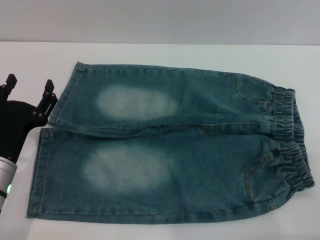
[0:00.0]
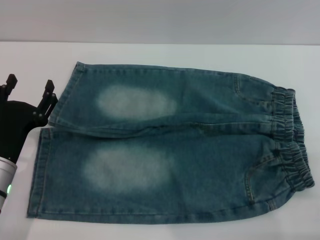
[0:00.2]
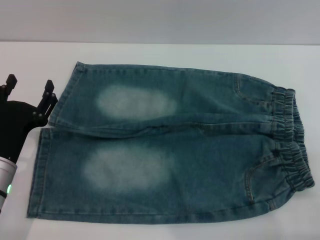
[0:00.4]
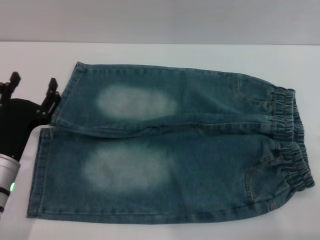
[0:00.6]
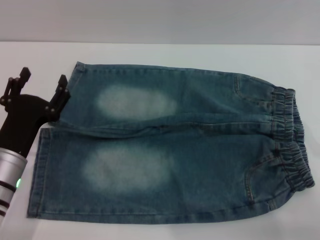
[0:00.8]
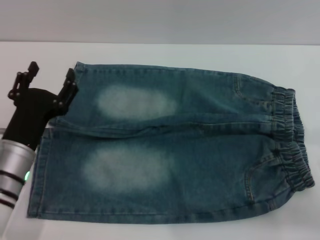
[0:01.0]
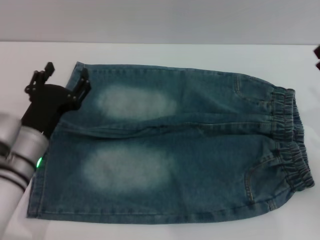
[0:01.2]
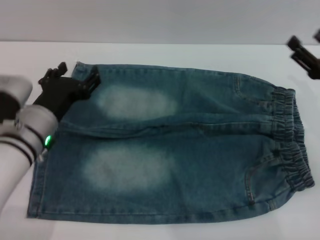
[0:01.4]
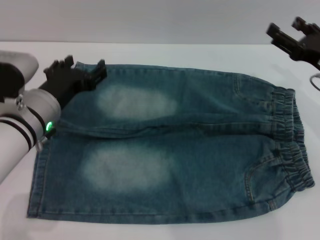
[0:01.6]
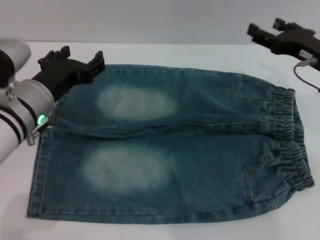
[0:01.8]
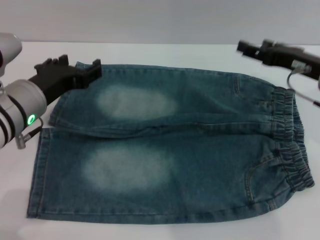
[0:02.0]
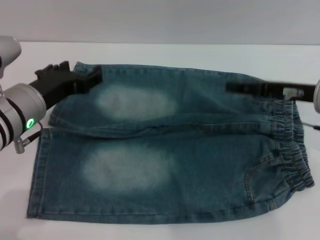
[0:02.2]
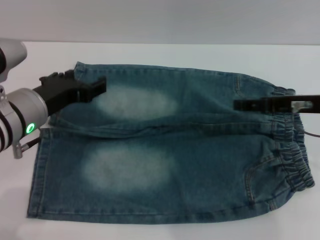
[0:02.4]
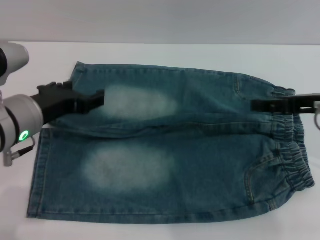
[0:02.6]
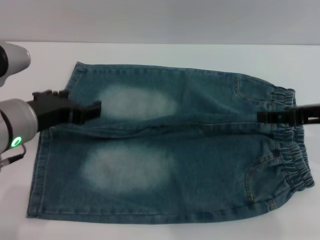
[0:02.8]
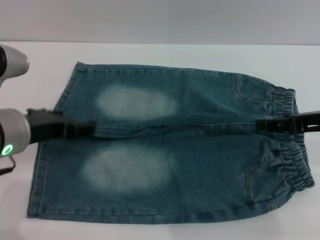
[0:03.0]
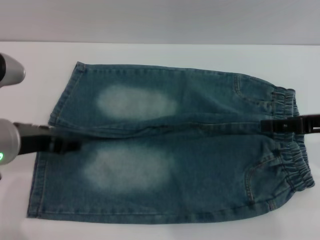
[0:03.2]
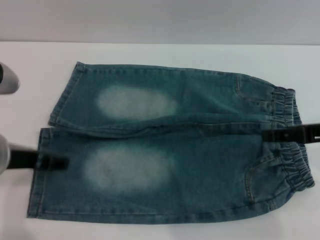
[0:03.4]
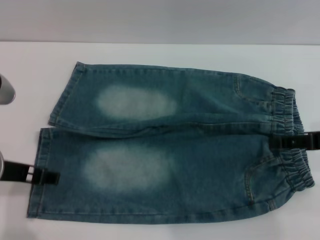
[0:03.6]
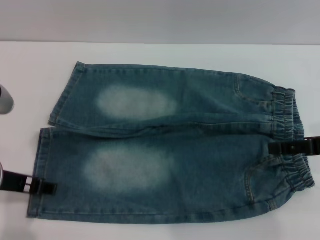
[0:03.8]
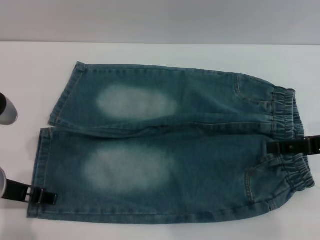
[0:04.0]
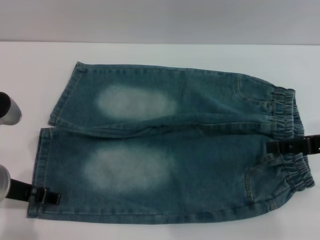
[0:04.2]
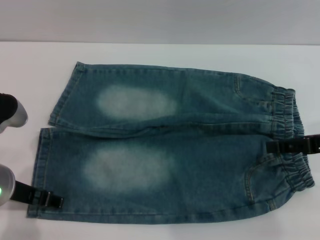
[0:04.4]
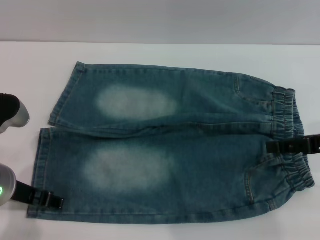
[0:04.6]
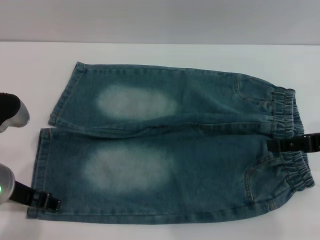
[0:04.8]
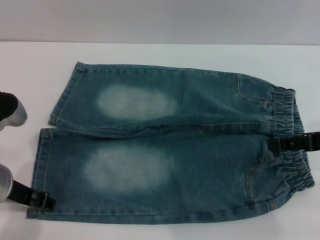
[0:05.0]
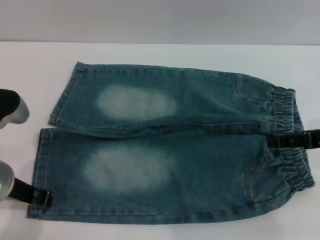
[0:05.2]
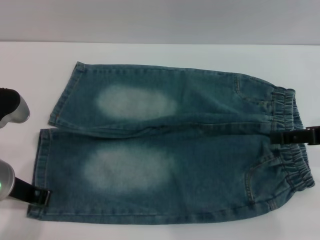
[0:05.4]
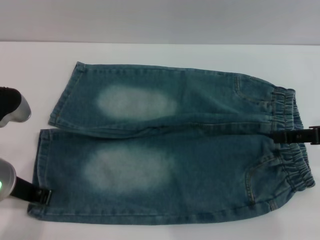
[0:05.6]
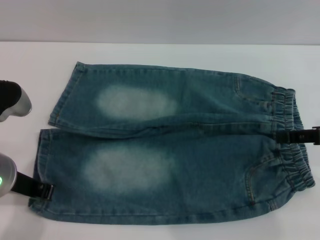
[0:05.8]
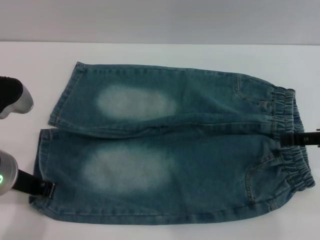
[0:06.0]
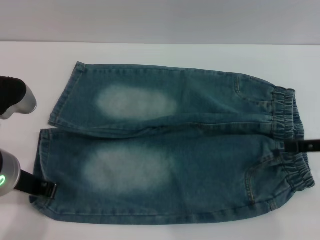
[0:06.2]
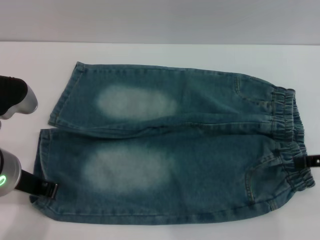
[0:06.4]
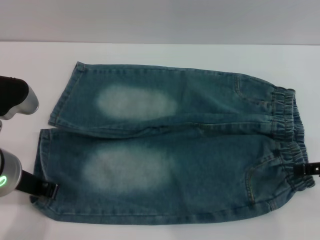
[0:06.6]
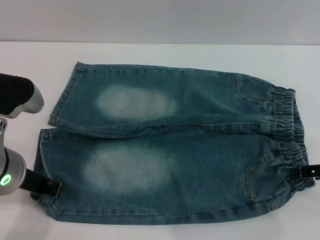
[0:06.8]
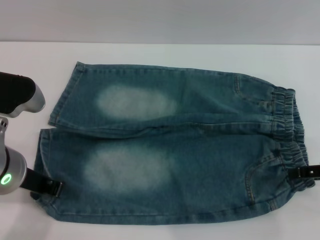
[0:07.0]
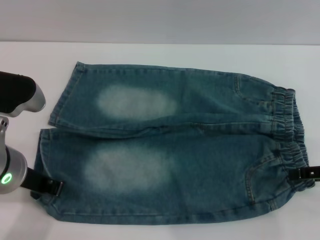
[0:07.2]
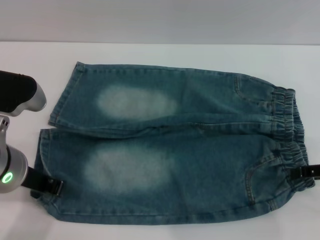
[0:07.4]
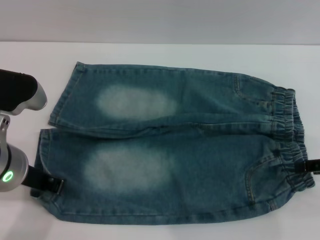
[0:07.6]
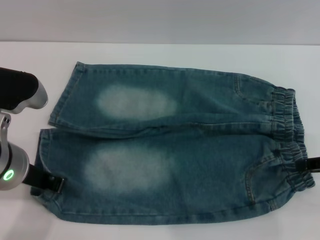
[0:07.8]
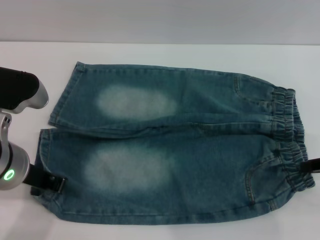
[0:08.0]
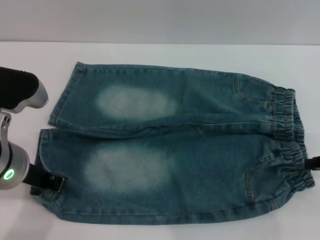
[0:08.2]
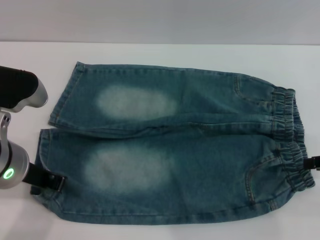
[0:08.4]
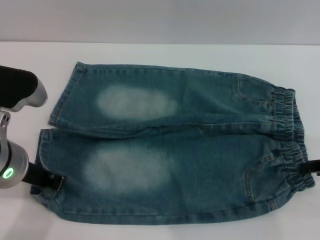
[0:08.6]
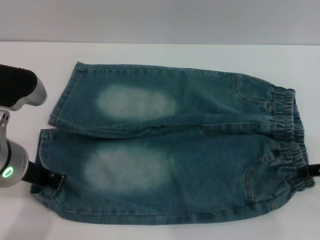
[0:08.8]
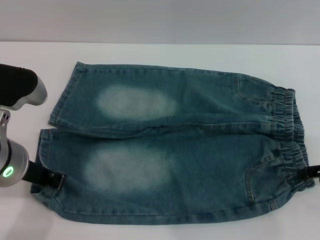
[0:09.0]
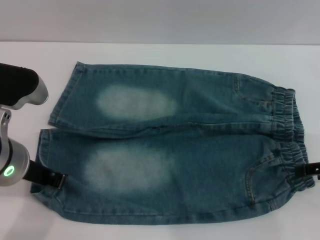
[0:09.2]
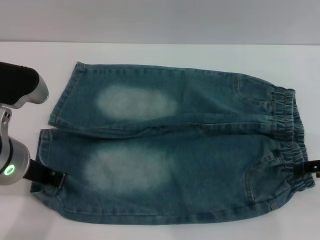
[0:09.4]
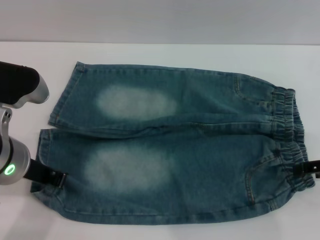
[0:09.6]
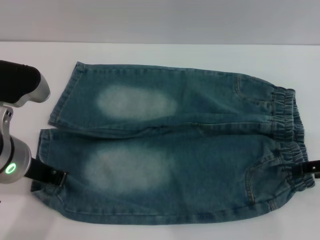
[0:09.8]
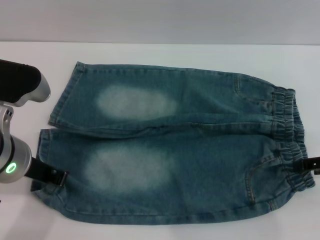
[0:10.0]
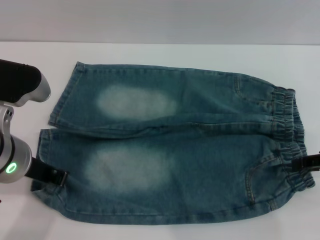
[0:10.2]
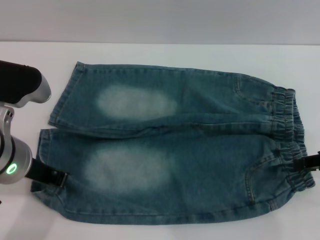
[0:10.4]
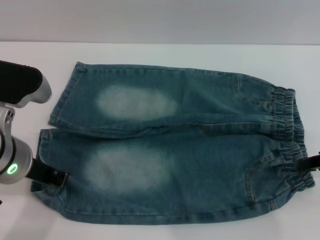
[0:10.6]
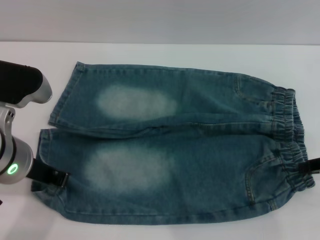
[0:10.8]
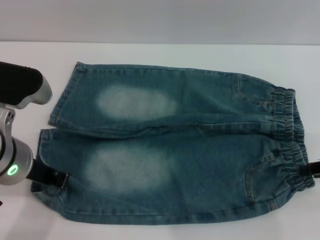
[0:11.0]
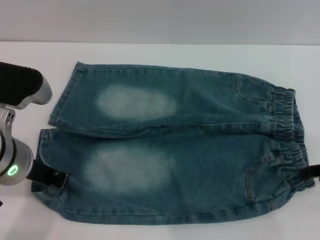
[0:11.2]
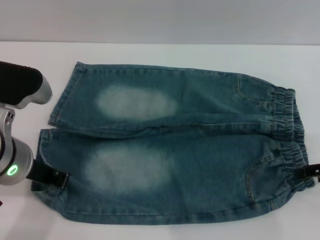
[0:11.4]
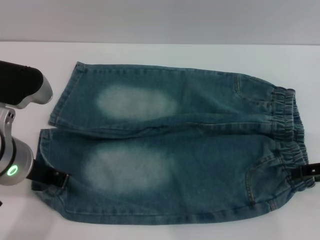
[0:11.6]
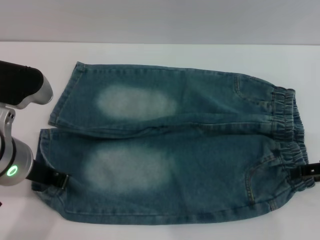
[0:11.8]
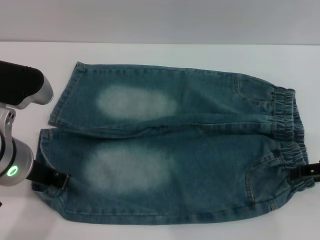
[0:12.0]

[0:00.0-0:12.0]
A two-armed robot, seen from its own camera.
0:00.0 to 0:01.6: The left gripper shifts about 10 cm forward, upward and to the right, while the right gripper heads forward, covering approximately 20 cm.
0:01.6 to 0:03.0: The two grippers go approximately 10 cm upward and backward.
0:04.4 to 0:06.0: The left gripper closes up.
0:06.0 to 0:07.6: The right gripper moves about 5 cm.
0:09.0 to 0:10.4: The two grippers keep their place.

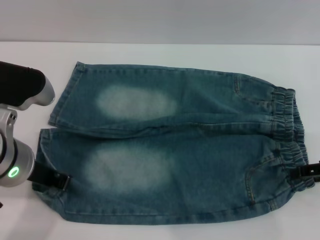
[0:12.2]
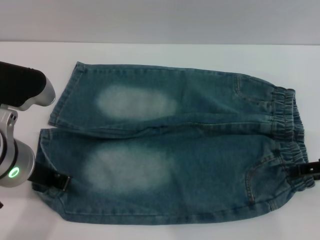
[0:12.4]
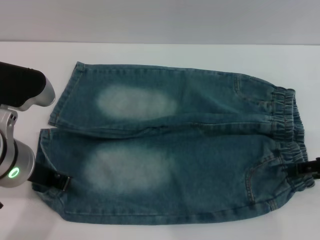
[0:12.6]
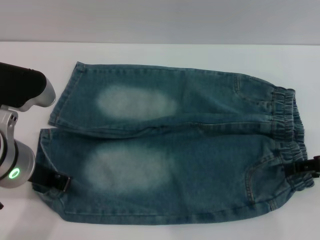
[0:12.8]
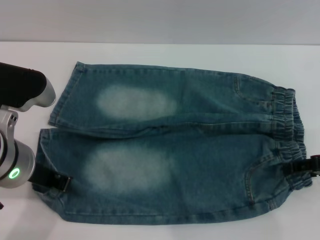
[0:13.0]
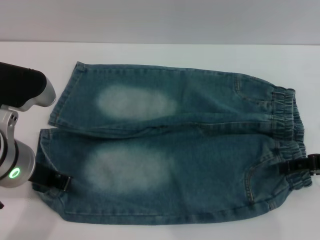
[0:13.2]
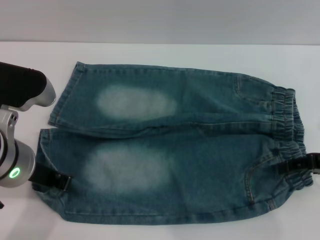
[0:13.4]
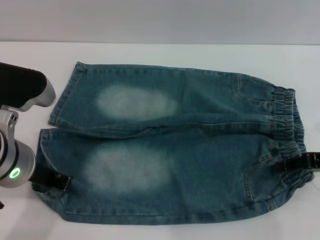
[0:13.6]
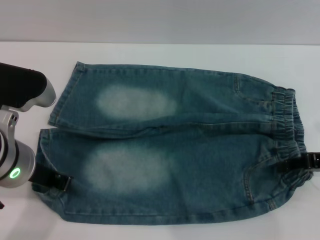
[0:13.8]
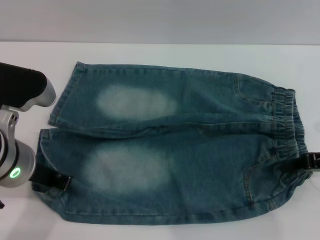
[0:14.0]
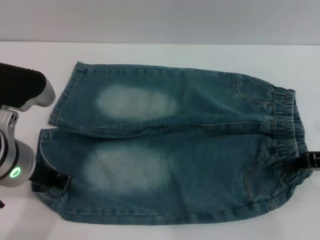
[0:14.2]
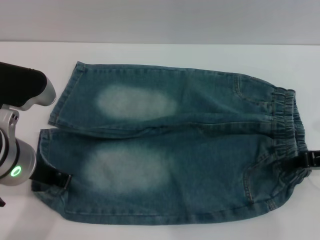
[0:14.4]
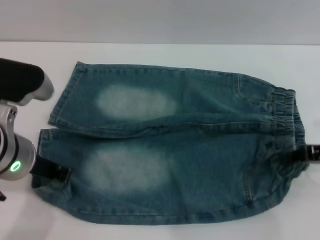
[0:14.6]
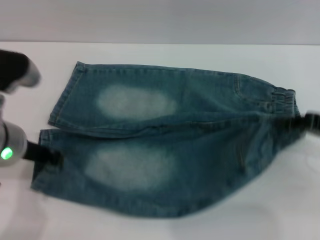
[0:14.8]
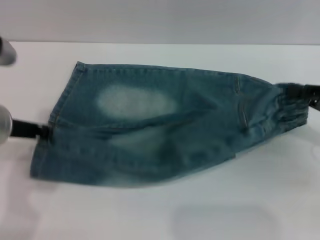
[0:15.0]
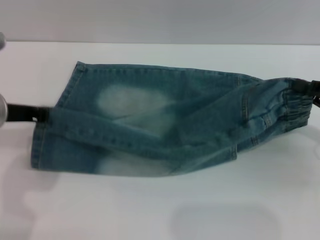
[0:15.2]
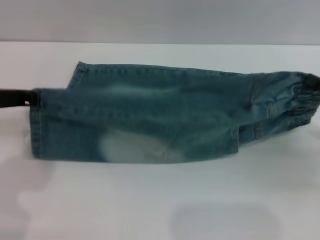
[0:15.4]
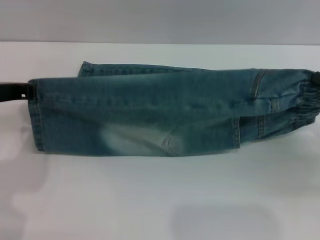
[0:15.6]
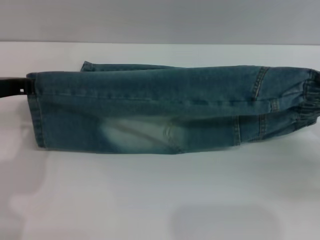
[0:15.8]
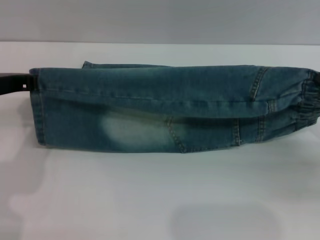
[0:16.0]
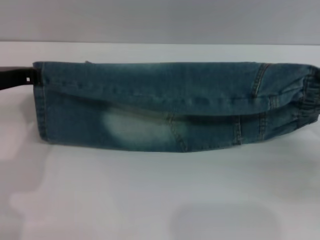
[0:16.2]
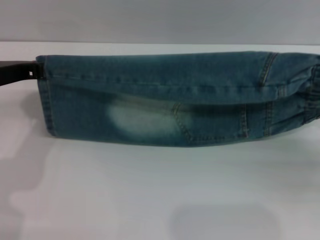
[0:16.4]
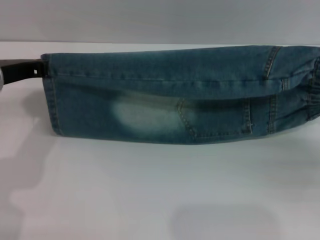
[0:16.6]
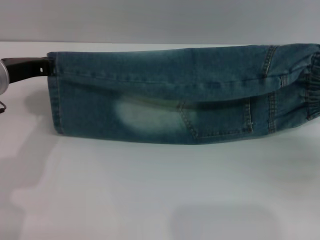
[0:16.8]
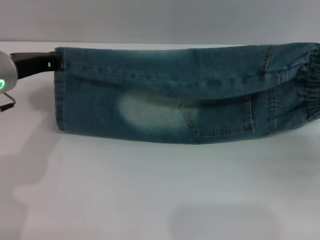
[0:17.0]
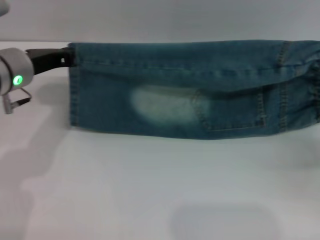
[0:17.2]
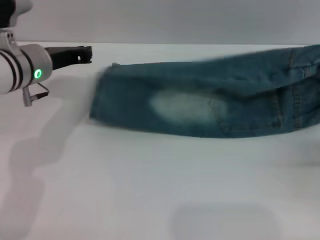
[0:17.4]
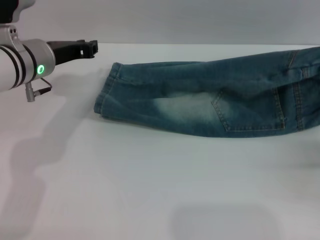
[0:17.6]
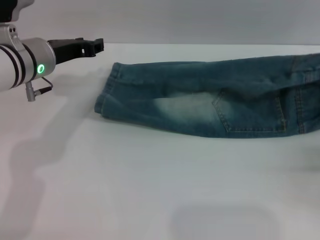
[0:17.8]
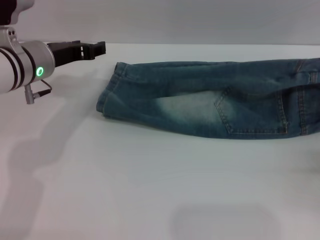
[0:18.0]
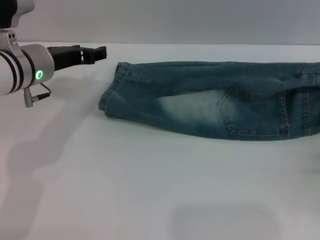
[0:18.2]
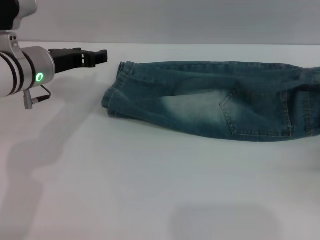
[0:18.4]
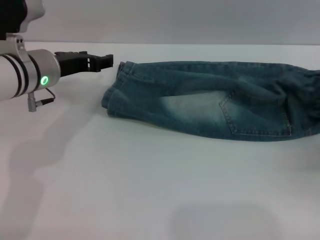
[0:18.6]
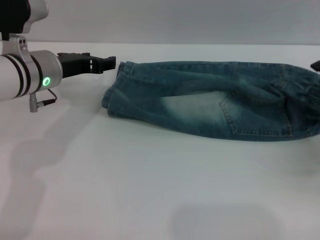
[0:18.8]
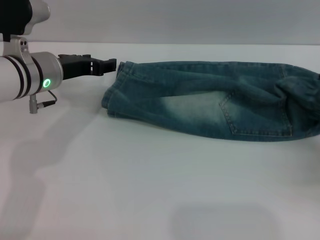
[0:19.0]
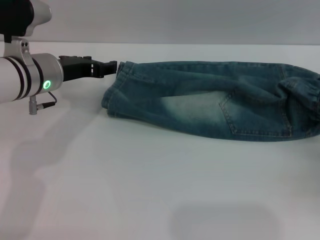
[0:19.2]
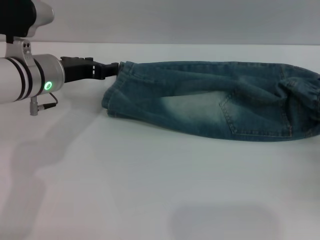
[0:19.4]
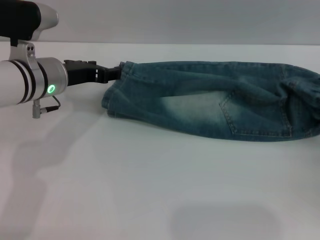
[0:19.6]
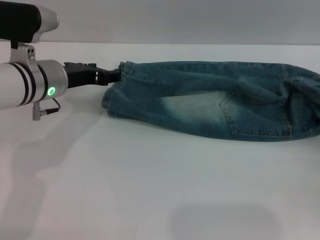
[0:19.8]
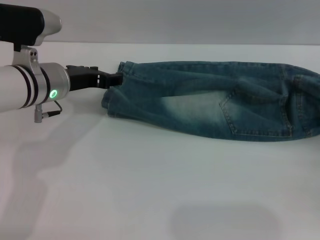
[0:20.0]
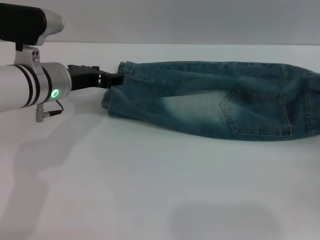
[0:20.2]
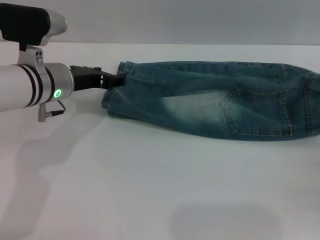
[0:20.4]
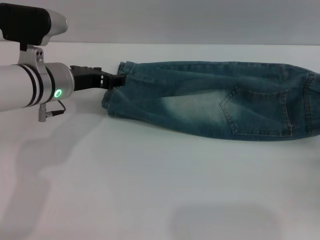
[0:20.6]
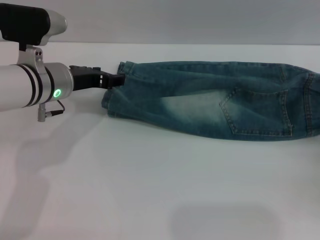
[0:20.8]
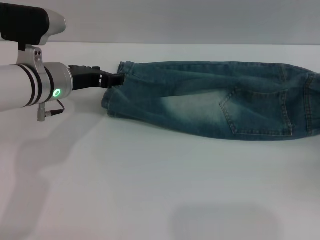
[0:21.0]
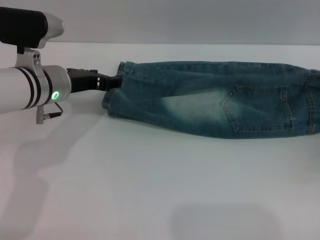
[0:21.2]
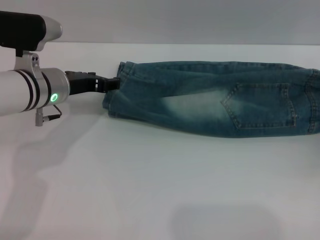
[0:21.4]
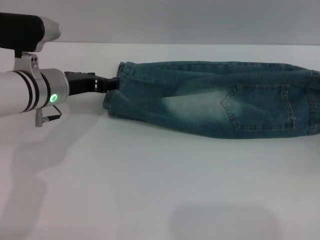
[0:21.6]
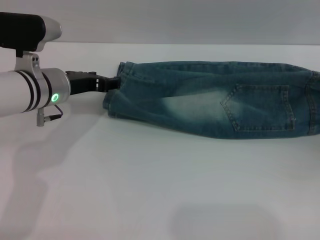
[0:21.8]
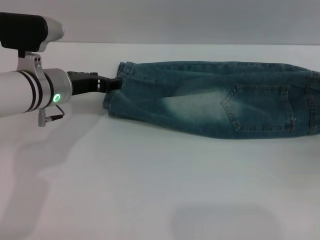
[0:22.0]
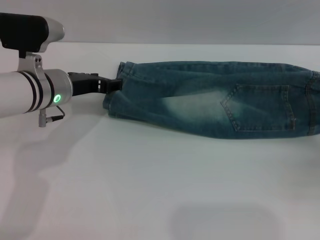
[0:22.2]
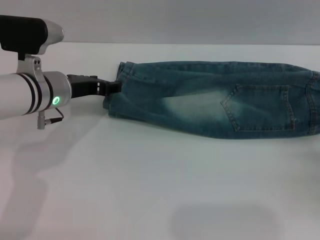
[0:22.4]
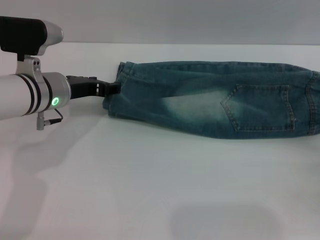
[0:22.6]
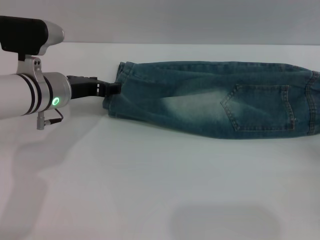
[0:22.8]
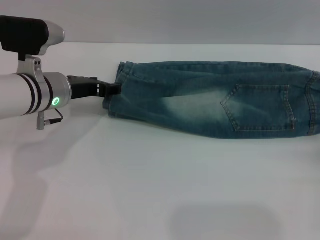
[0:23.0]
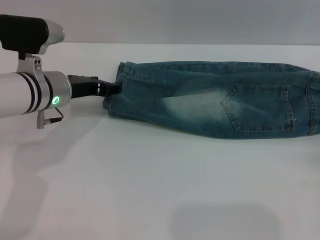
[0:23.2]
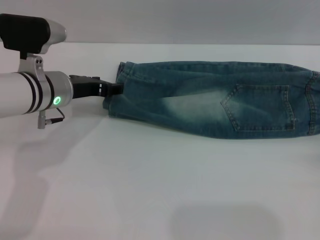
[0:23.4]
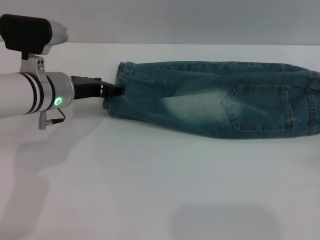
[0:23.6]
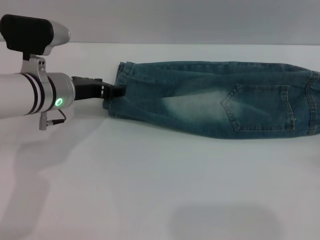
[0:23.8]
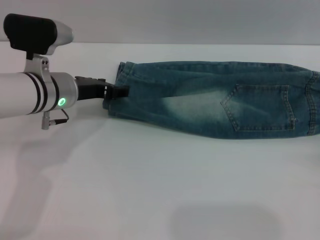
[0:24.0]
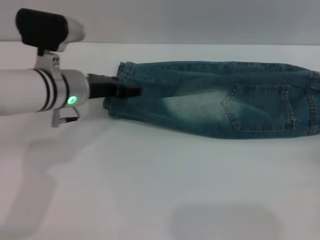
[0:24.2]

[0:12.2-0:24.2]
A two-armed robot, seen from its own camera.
Step, 0:12.2 to 0:22.6: Fold the bottom of the pants upward with both grippers.
0:12.2 to 0:13.8: The right gripper closes its fingers.
0:13.8 to 0:15.2: The left gripper ends up approximately 5 cm from where it was. Meanwhile the right gripper closes.
0:16.6 to 0:18.2: The right gripper opens. The left gripper heads forward, covering approximately 5 cm, and opens.
0:18.2 to 0:19.8: The right gripper shifts by some 5 cm.
0:19.8 to 0:21.2: The right gripper goes approximately 5 cm forward.
0:22.6 to 0:24.2: There are only small adjustments of the grippers.
